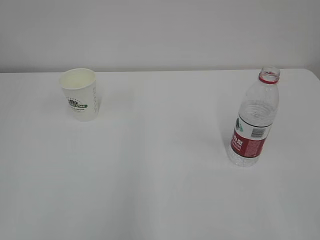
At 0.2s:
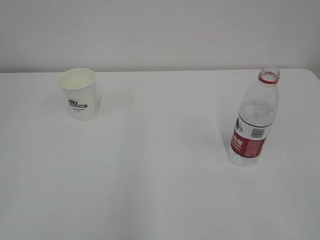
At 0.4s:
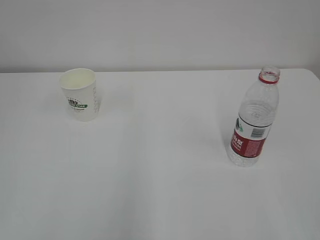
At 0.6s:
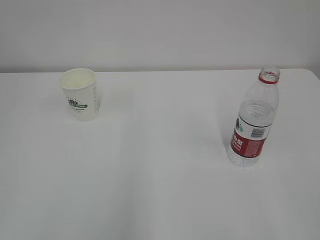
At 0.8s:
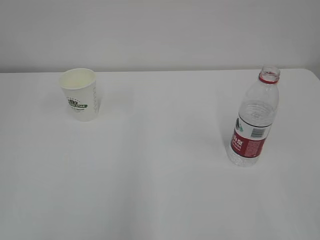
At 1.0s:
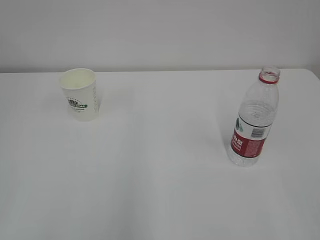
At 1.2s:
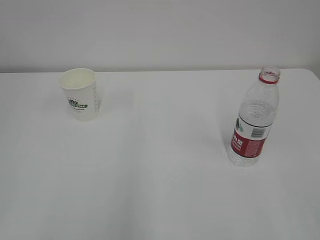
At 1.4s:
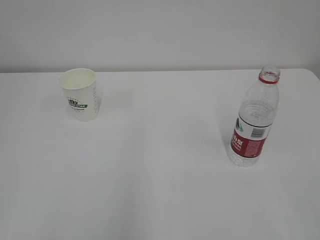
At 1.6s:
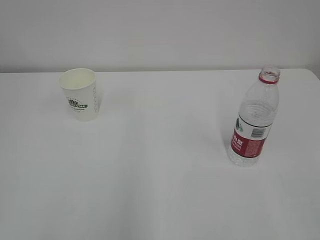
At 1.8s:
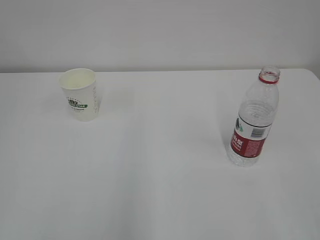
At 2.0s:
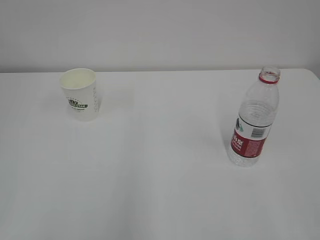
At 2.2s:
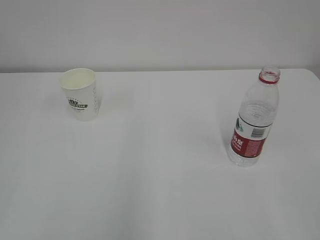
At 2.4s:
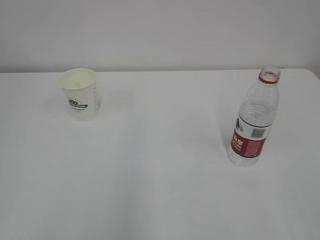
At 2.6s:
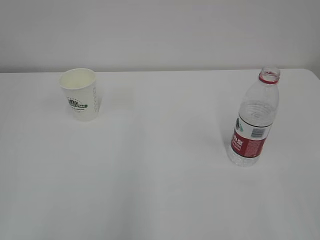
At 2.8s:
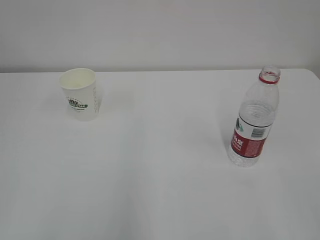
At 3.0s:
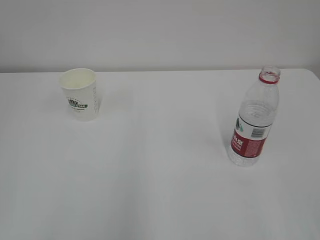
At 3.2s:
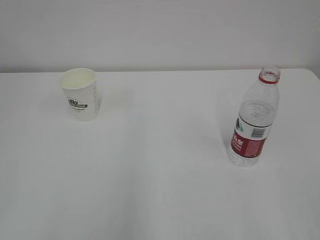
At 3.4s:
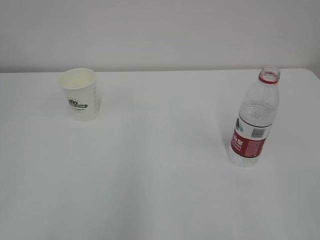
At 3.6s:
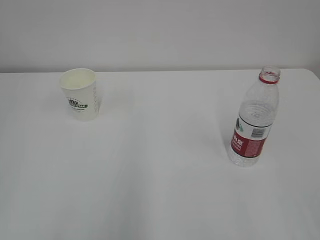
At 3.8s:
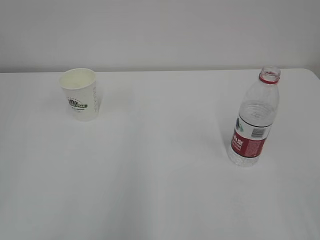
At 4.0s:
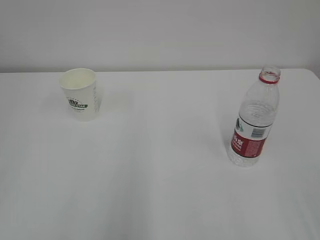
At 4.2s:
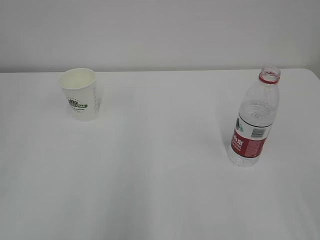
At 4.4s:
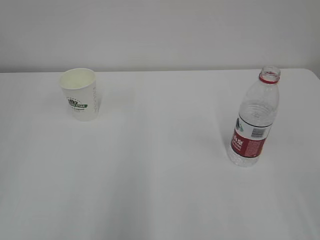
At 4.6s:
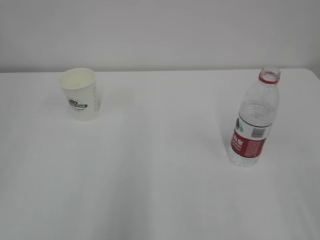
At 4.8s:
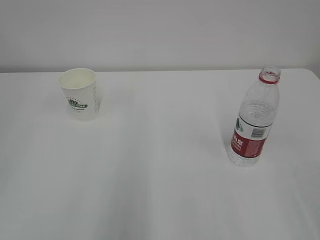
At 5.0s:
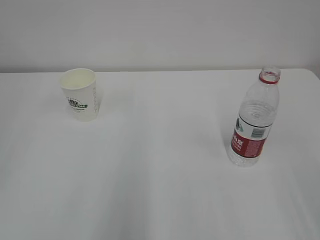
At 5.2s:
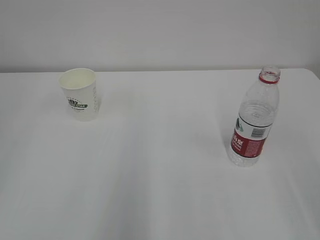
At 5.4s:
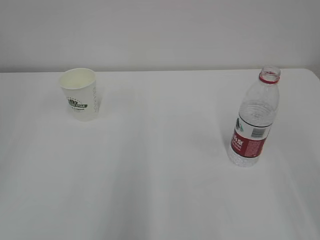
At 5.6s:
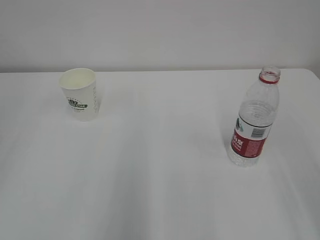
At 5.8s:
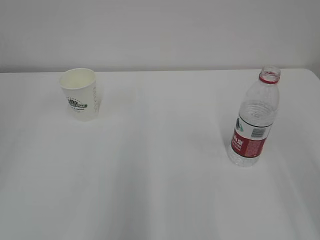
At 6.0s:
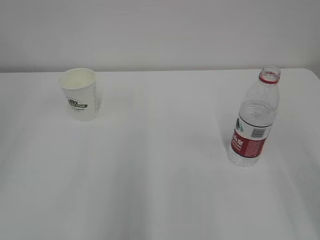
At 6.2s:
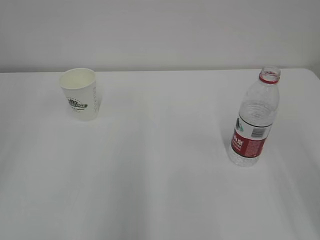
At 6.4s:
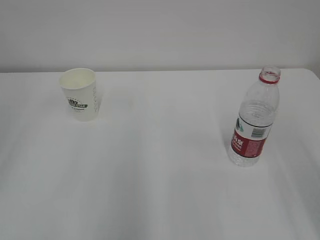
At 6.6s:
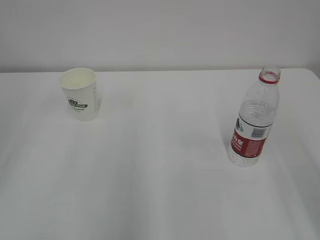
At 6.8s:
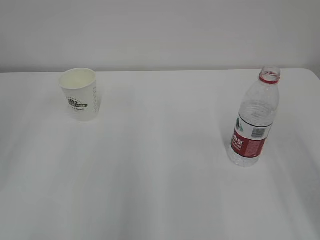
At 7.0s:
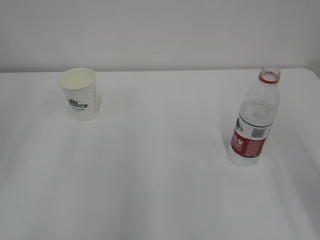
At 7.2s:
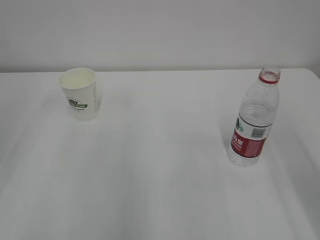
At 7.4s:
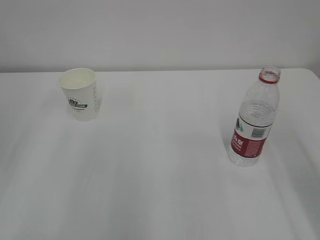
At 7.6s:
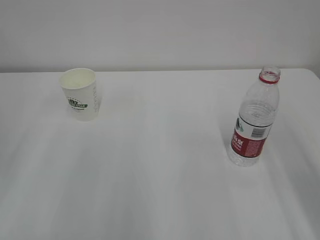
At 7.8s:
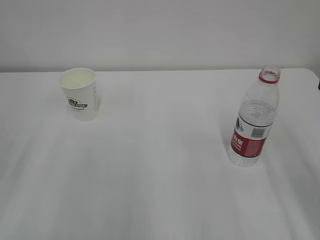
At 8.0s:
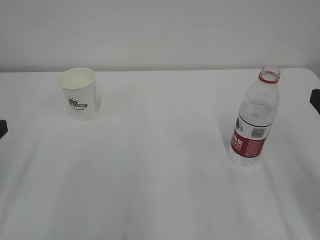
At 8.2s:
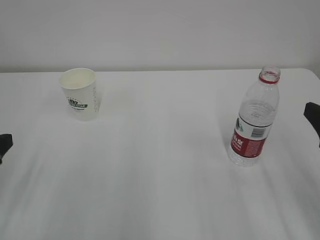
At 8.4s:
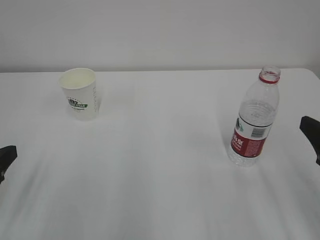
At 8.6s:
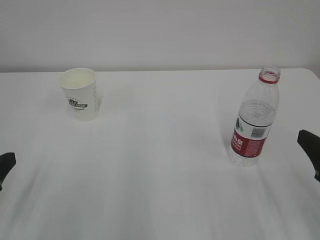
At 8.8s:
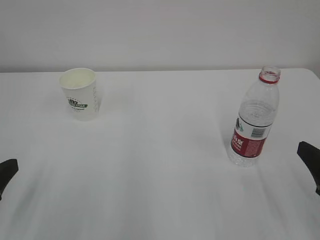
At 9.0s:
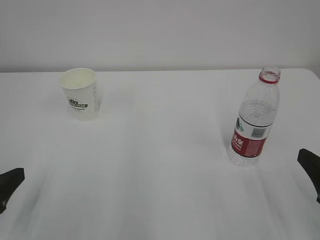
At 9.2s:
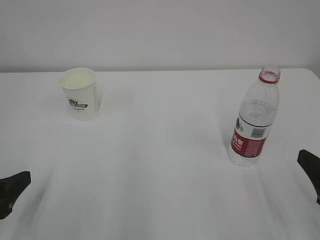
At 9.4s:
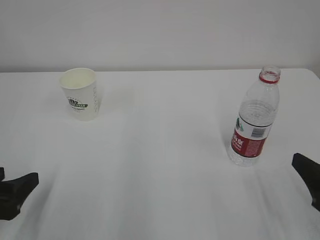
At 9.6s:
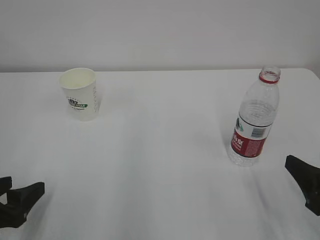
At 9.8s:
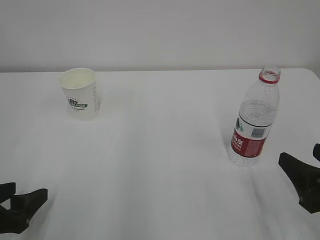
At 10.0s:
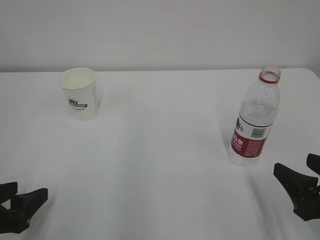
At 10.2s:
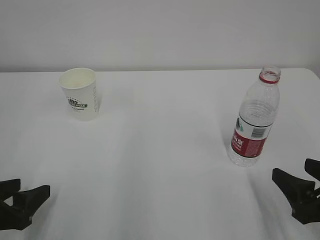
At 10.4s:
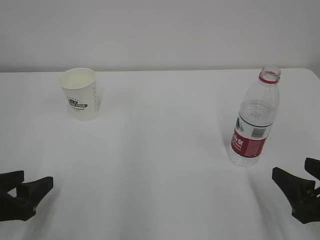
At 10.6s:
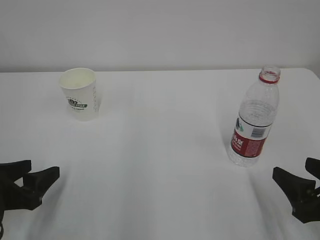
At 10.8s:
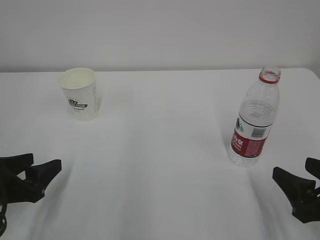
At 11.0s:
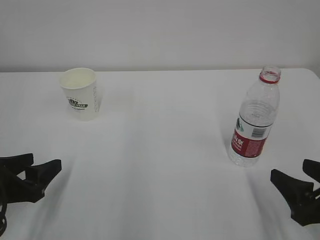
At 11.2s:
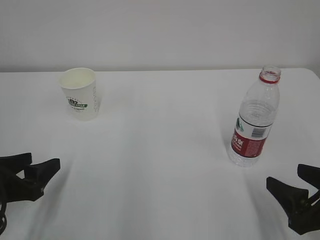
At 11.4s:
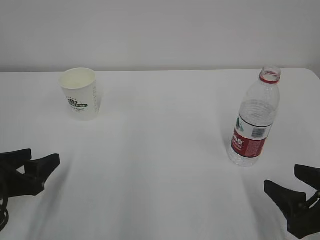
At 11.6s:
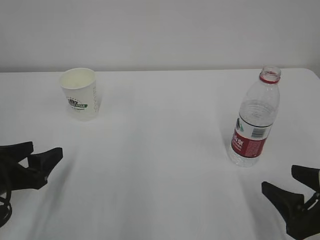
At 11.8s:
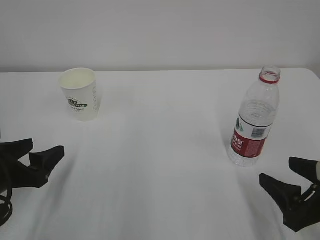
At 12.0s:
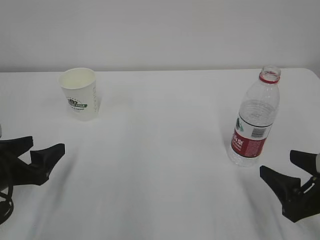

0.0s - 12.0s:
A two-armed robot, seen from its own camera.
1.6s - 3.0s: Both grippers stay put.
7.6s - 9.0s: The grippers both shift downward and backward by about 10 cm.
9.0s - 10.4s: The left gripper changes place by some 5 cm.
10.4s - 12.0s: The left gripper opens.

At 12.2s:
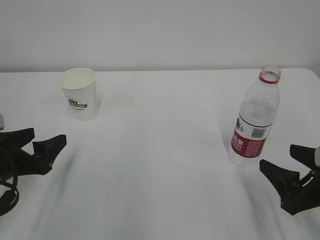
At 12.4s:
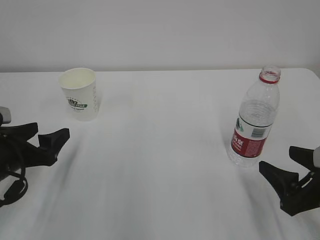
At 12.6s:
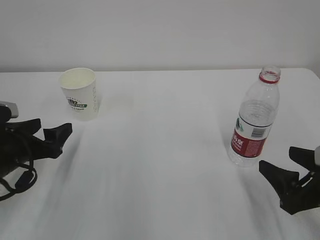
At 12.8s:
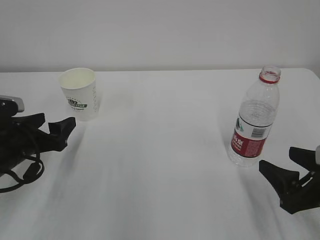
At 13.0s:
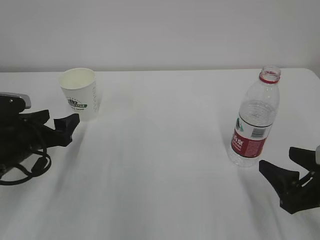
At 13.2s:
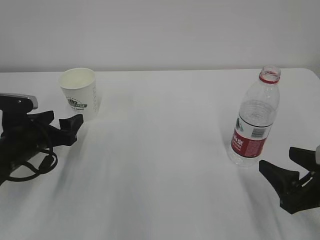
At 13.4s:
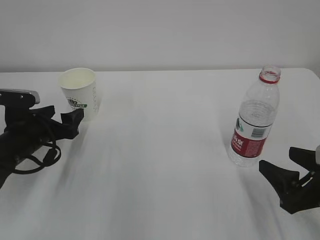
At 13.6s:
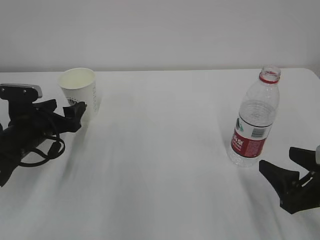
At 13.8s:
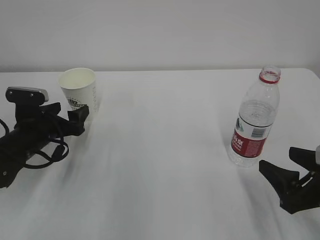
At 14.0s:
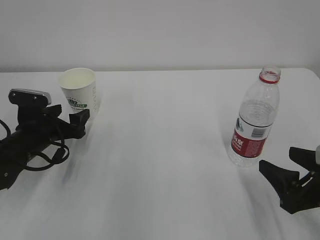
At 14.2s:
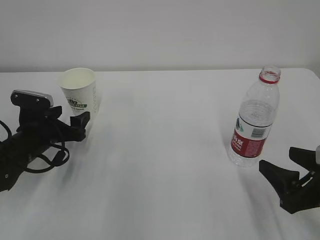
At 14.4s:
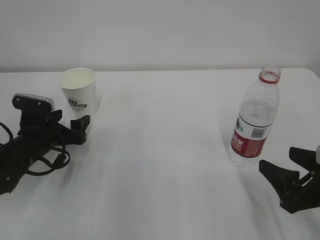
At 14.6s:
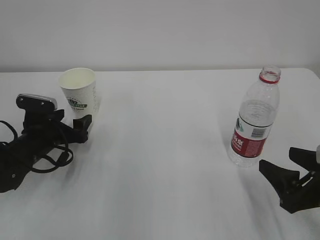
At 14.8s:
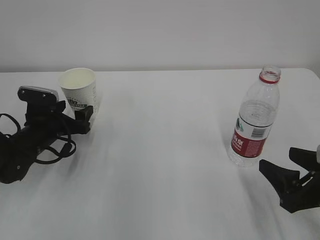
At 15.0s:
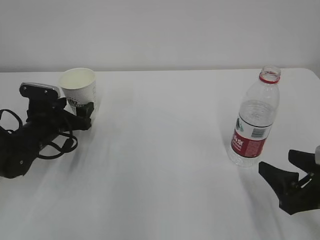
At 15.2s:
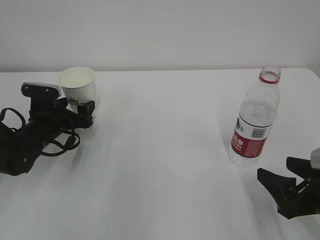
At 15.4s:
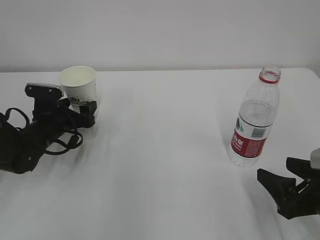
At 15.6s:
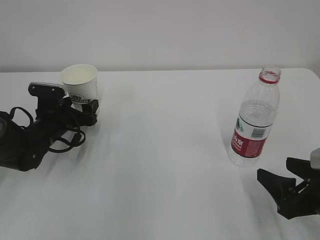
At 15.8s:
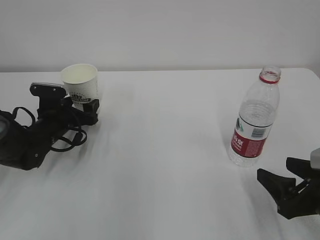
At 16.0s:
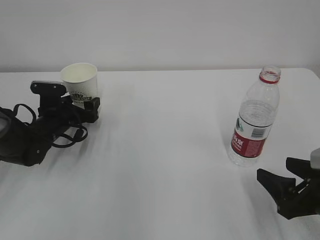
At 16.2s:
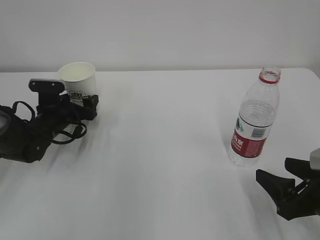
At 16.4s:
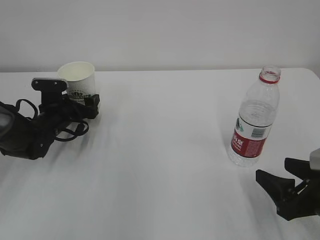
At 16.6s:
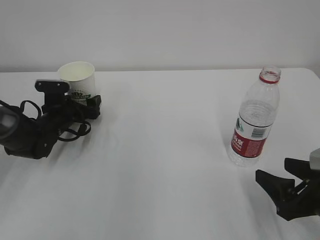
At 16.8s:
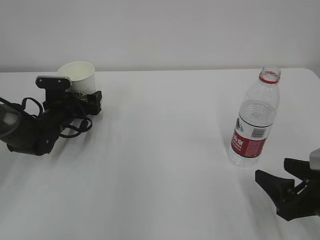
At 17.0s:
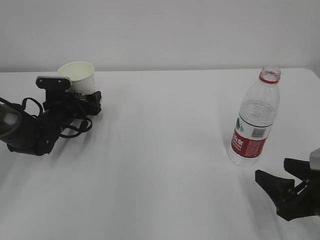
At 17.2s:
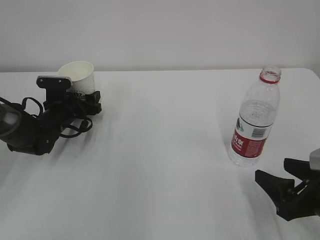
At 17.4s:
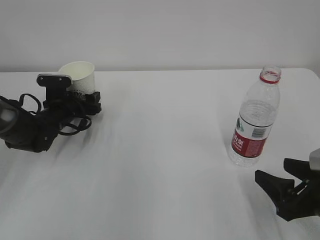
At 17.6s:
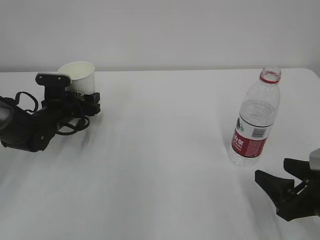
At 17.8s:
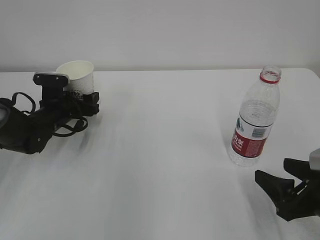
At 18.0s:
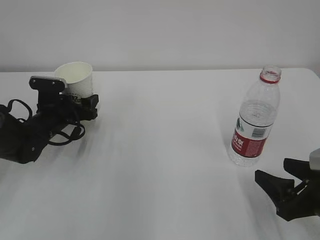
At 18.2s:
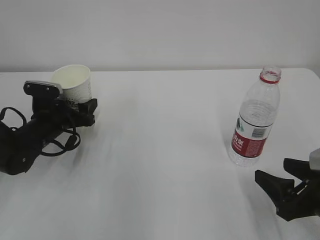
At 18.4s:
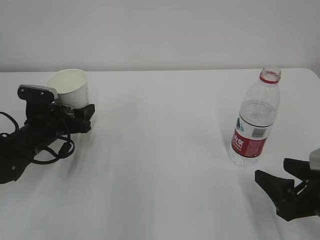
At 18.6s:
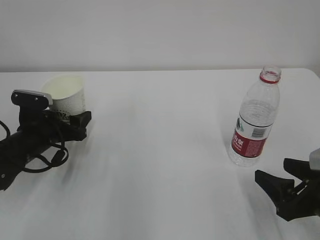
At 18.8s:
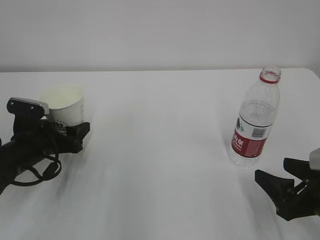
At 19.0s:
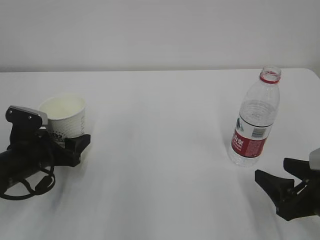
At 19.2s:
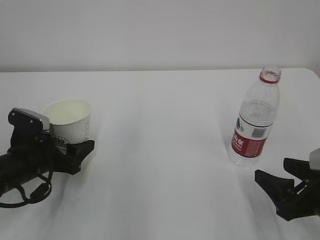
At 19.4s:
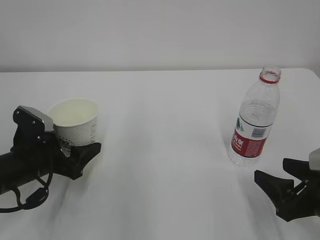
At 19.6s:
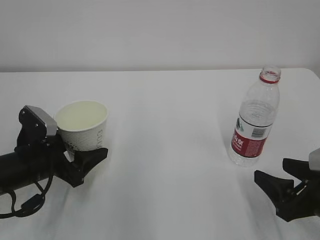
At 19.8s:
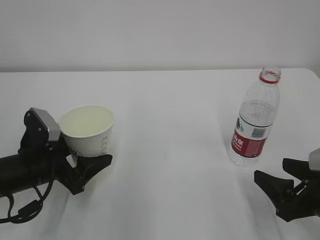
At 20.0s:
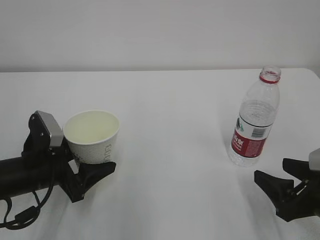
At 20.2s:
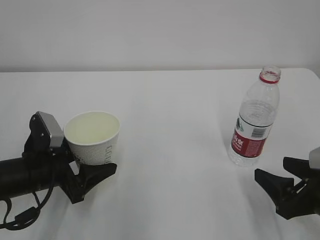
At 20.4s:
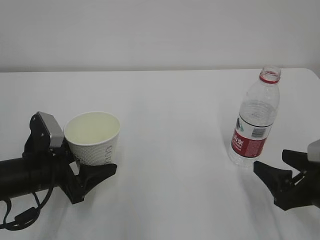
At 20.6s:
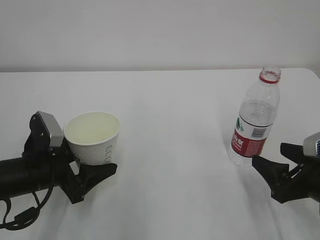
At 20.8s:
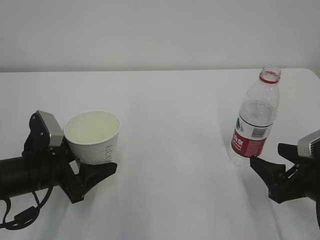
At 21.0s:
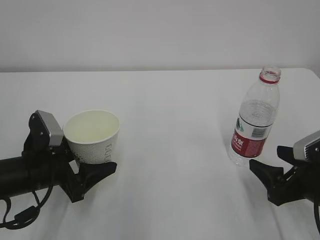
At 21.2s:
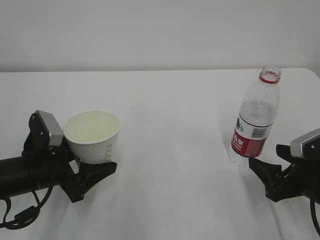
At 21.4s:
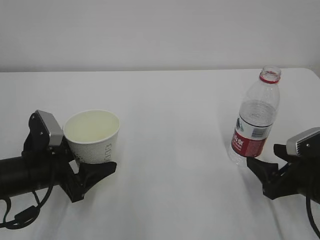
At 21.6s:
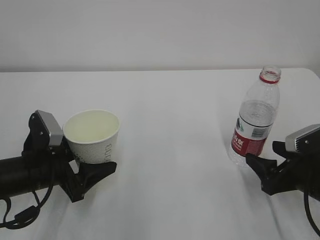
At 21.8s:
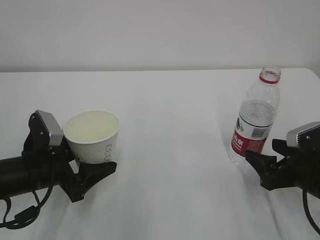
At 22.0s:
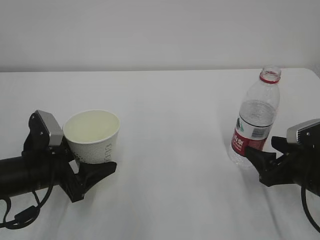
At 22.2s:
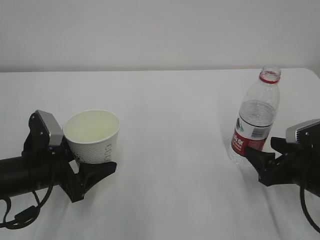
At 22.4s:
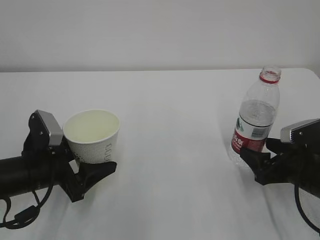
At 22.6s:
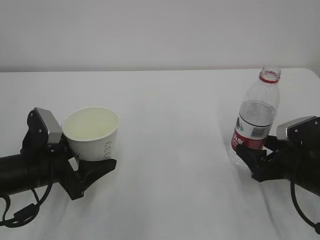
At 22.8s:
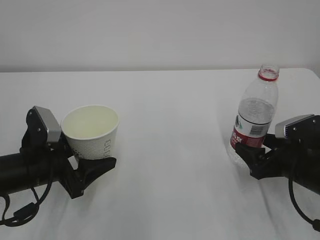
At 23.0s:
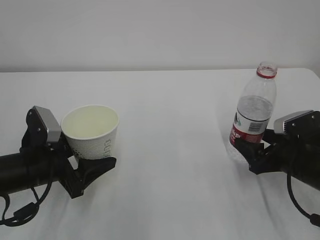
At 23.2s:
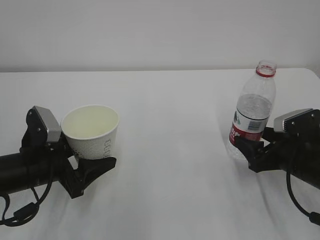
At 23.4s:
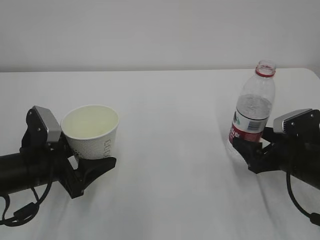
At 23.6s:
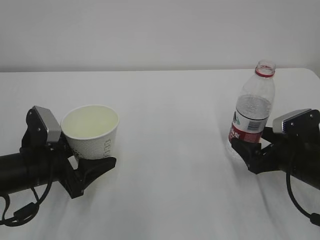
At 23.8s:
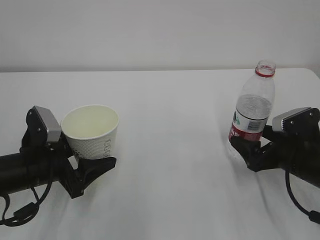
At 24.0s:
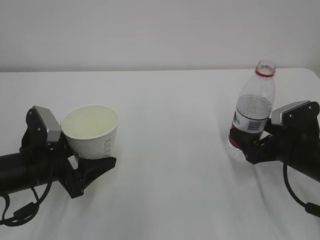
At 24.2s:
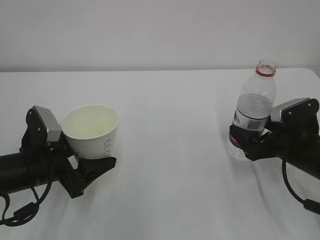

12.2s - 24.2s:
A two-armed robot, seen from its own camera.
12.2s - 13.8s: The left gripper moves forward, some 10 cm.
13.8s - 15.2s: The grippers stay close to where they were, moving slightly.
15.2s - 16.6s: The left gripper heads forward, covering approximately 5 cm.
16.6s - 18.2s: The left gripper changes place by roughly 5 cm, and closes up.
18.2s - 19.8s: The left gripper heads backward, covering roughly 10 cm.
19.8s - 21.2s: The grippers stay close to where they were, moving slightly.
21.2s - 22.6s: The grippers stay close to where they were, moving slightly.
